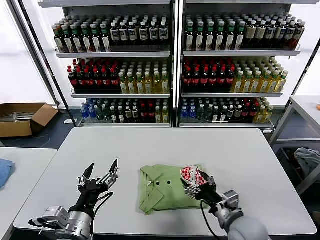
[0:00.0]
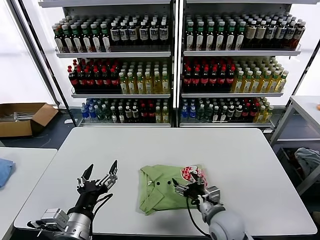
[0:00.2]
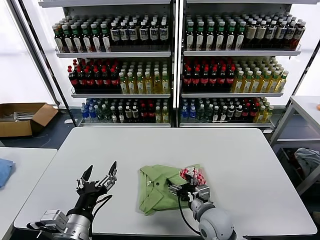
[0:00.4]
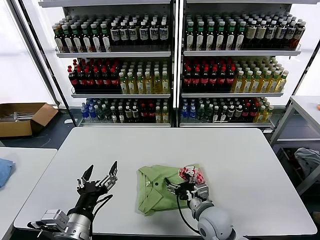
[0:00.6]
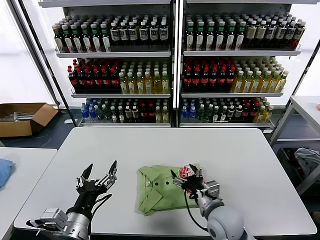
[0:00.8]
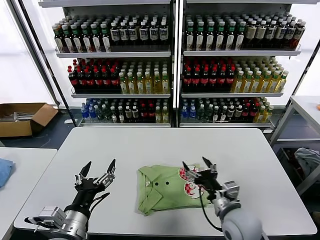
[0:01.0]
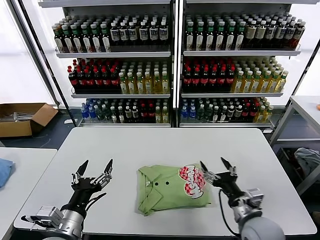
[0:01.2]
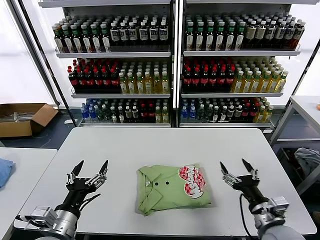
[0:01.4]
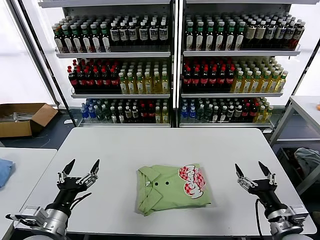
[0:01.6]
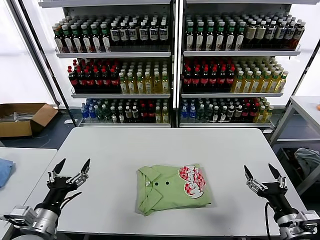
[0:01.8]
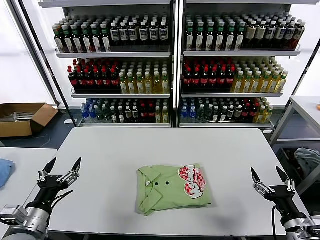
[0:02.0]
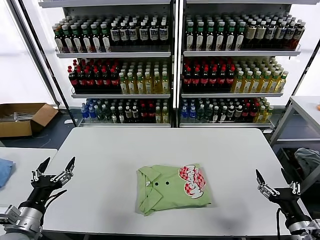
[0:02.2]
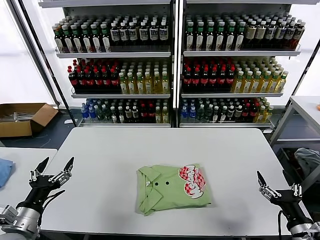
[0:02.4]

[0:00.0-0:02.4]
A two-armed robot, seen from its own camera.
Task of the whole recording: fold and organize the clothes.
0:00.0 to 0:01.2: The right gripper travels to the left and back again, some 10 cm each way.
0:01.2 to 0:02.4: The left gripper travels to the left by about 15 cm, while the right gripper moves to the right and backward, some 15 cm.

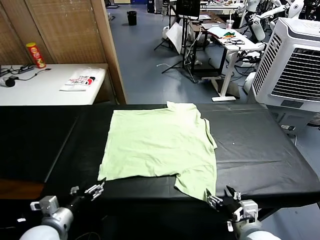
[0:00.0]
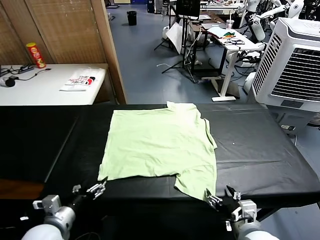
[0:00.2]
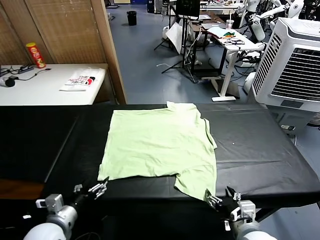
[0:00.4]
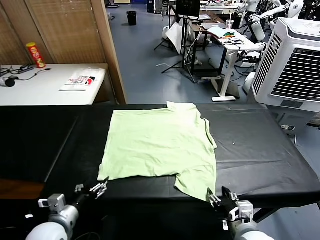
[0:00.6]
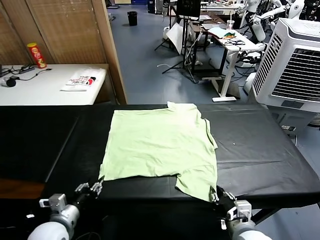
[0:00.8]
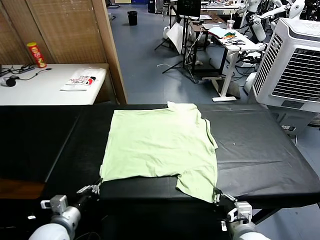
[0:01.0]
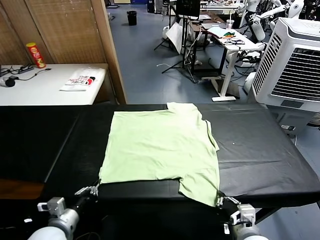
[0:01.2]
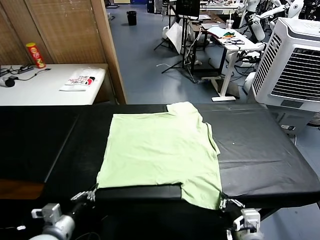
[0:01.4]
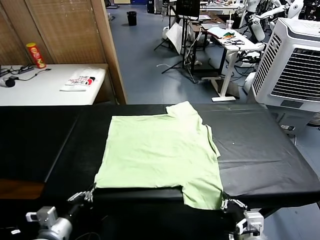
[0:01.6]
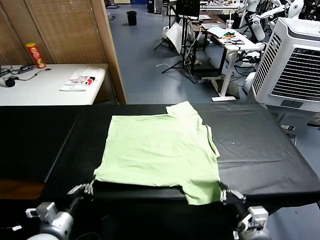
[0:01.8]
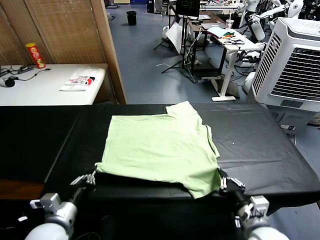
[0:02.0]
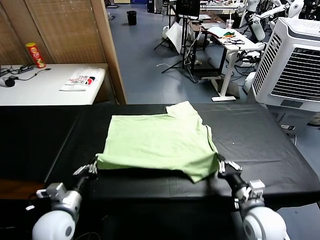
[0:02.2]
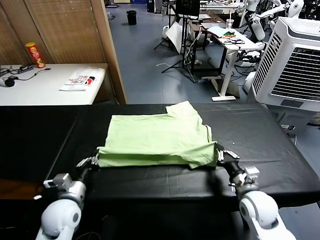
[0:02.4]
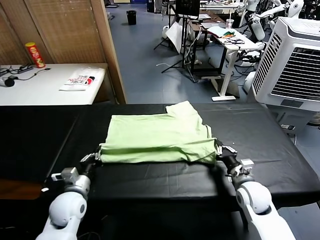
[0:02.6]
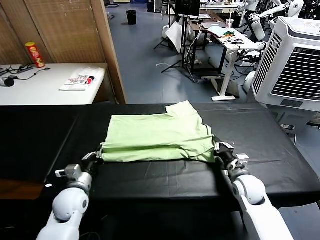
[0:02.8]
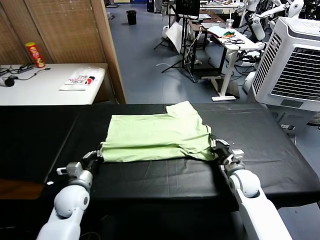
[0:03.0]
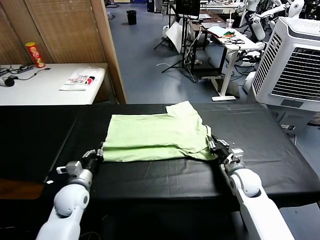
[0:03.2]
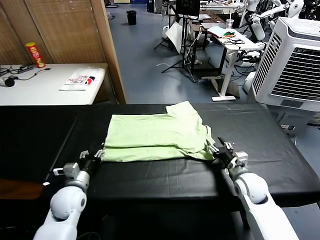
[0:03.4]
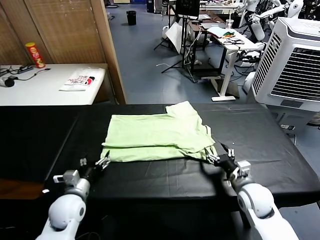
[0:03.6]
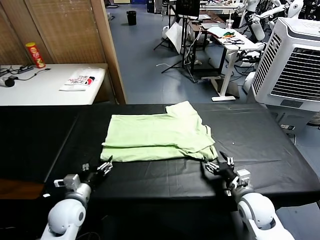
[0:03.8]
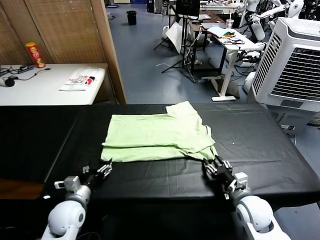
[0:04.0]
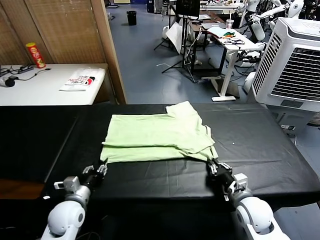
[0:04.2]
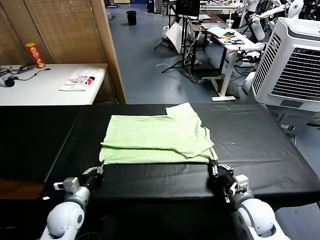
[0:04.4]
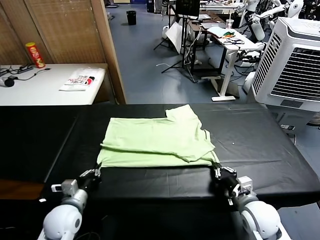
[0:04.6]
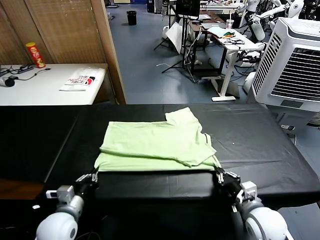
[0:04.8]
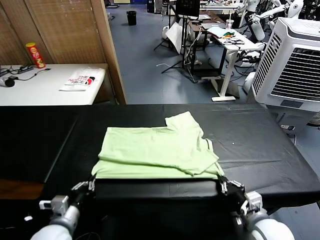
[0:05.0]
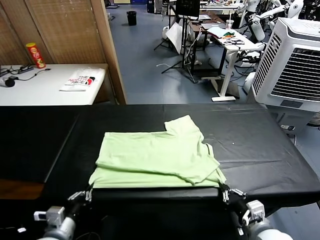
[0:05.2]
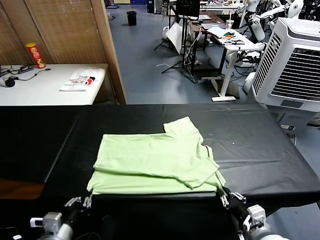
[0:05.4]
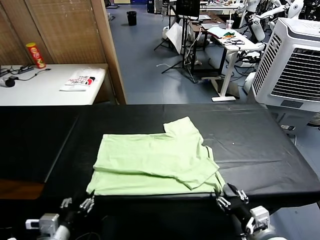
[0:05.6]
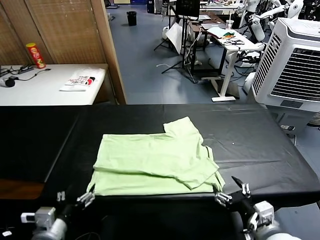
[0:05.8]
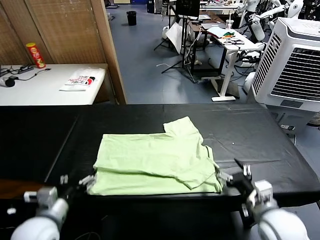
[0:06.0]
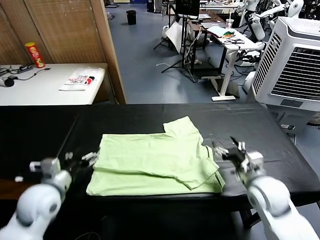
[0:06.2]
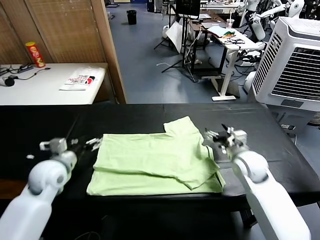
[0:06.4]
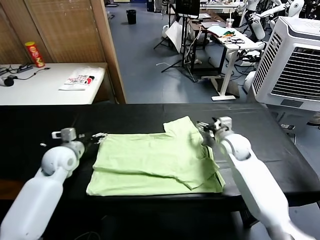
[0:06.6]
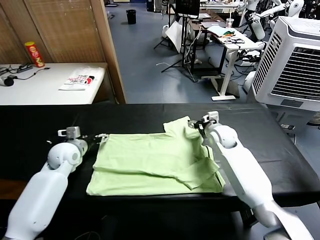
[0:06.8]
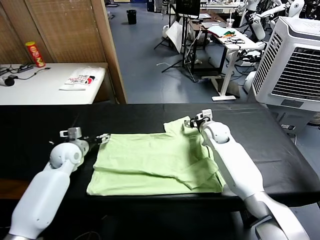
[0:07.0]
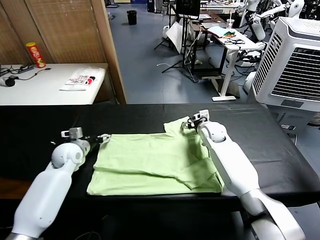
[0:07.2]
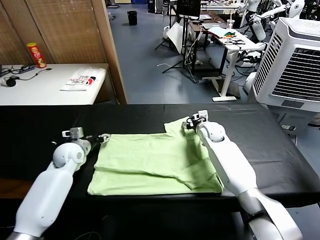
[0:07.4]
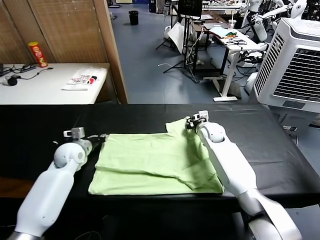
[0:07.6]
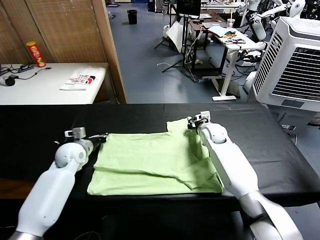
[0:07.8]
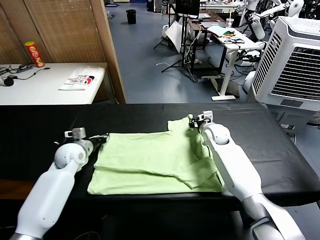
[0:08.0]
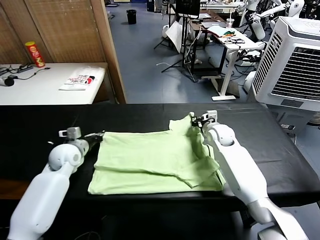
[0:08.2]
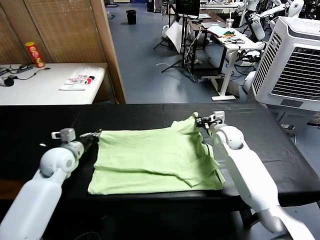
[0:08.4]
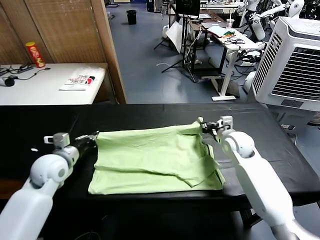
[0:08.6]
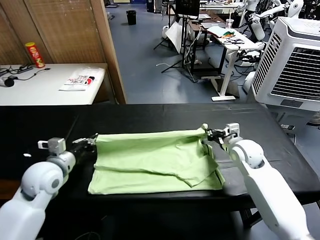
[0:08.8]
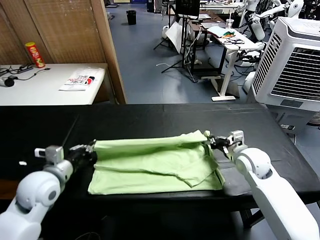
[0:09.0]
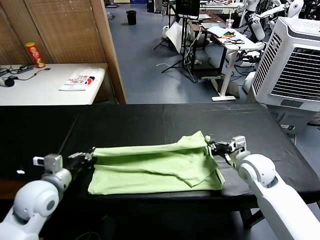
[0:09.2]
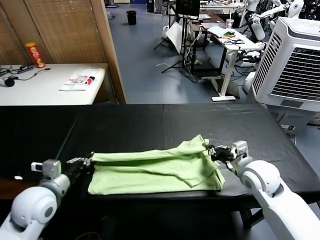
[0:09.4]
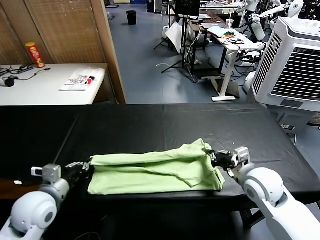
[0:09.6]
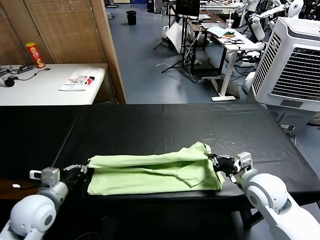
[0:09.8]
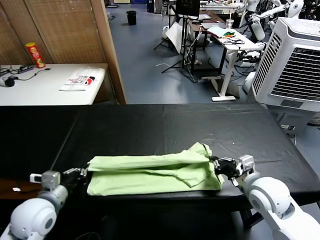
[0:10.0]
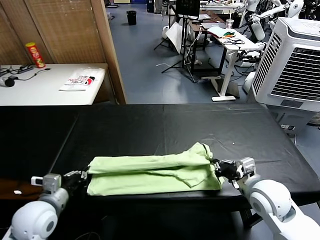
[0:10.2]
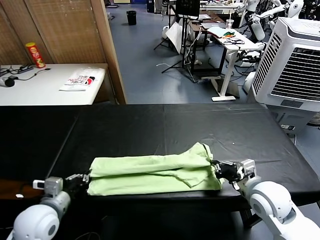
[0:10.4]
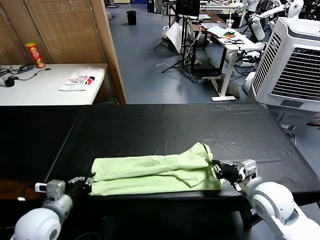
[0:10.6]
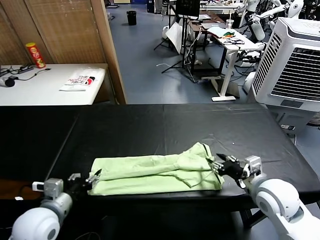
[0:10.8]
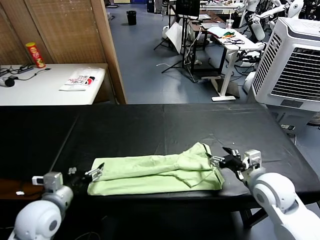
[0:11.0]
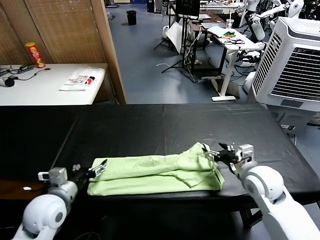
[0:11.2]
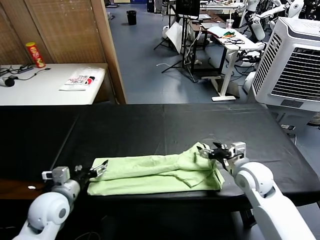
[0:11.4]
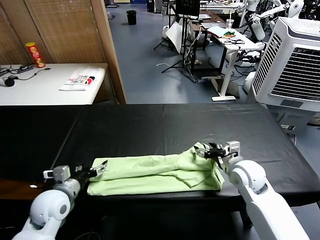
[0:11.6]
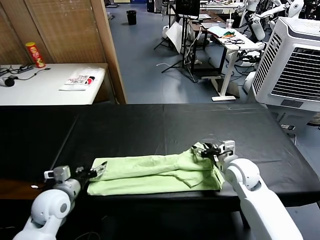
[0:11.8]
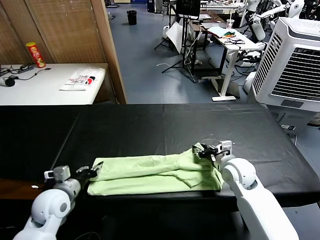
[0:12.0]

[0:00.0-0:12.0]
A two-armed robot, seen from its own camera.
Task of the whole recording: fold and organize the clothes.
Step, 0:00.0 to 0:01.0: use both grippers simultaneously to clamp the lower edge of the clothing fabric.
Step, 0:01.2 to 0:03.4: use both grippers to drag the lower edge of the fabric forward and fold it over the upper edge.
Step, 0:03.6 to 0:05.6: Drag the clothes downward with both gripper.
Step, 0:05.8 to 0:07.6: use both grippers simultaneously to clamp the upper edge of the clothing fabric.
Step, 0:08.0 to 0:10.8: use both grippers to drag the upper edge of the fabric backward and fold it over the lower edge.
0:01.6 to 0:03.0: The two grippers go some 20 cm forward. The right gripper opens its fingers.
0:03.0 to 0:04.4: The right gripper goes roughly 10 cm backward, and closes its fingers. The left gripper heads backward, covering roughly 5 cm, and opens, then closes once more.
0:04.4 to 0:06.0: Both grippers travel together upward, approximately 10 cm. The left gripper opens; the right gripper goes backward and returns, some 10 cm each way, and opens.
0:06.0 to 0:07.6: Both grippers move forward, about 25 cm. The left gripper closes, while the right gripper closes.
0:07.6 to 0:09.0: The left gripper goes some 20 cm backward and upward; the right gripper is displaced backward and to the right by approximately 20 cm.
0:09.0 to 0:10.4: The right gripper travels backward by approximately 10 cm; the left gripper is displaced backward by roughly 5 cm.
0:10.4 to 0:12.0: The right gripper goes approximately 10 cm forward, and opens, then closes again; the left gripper heads forward, covering some 5 cm, and opens up.

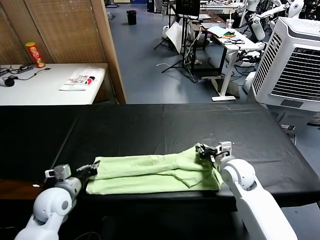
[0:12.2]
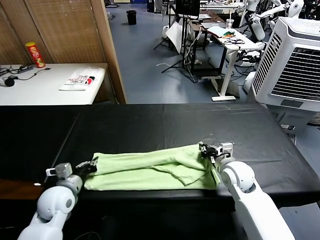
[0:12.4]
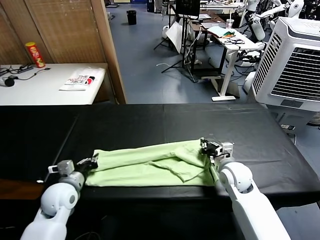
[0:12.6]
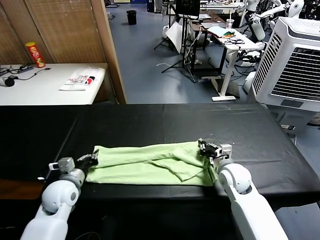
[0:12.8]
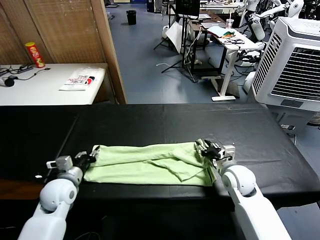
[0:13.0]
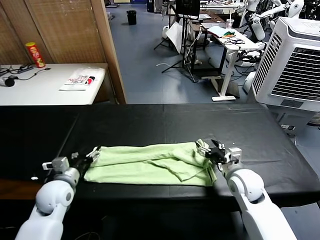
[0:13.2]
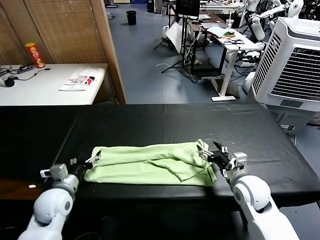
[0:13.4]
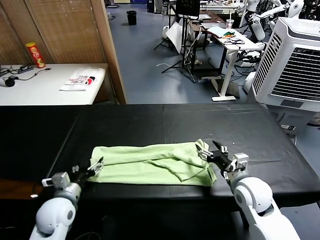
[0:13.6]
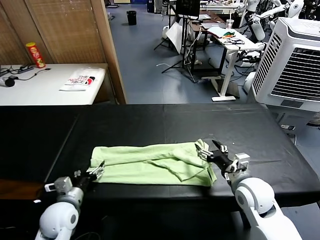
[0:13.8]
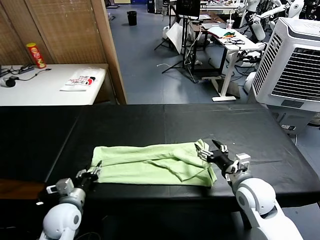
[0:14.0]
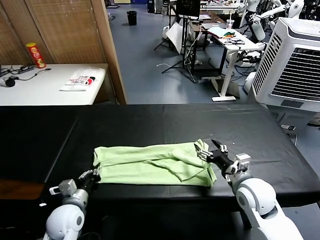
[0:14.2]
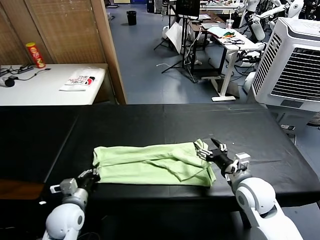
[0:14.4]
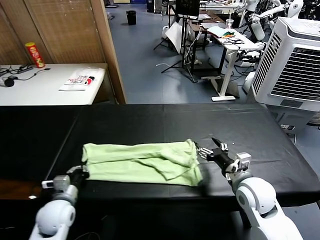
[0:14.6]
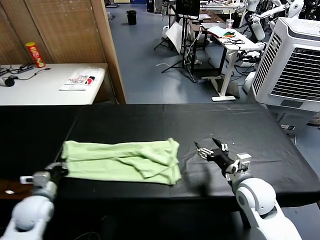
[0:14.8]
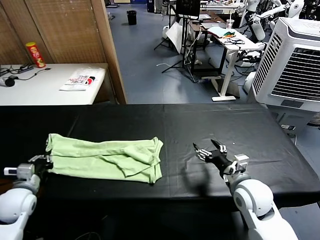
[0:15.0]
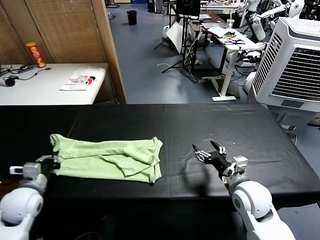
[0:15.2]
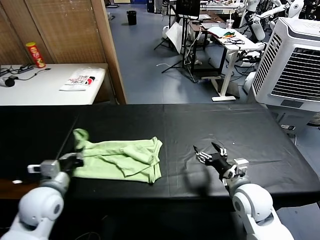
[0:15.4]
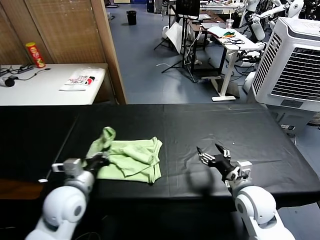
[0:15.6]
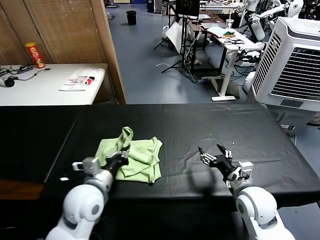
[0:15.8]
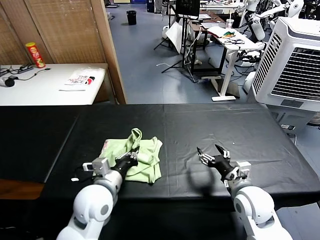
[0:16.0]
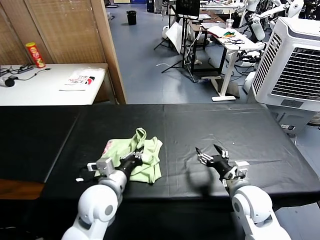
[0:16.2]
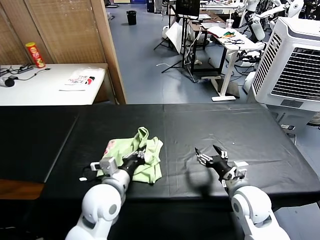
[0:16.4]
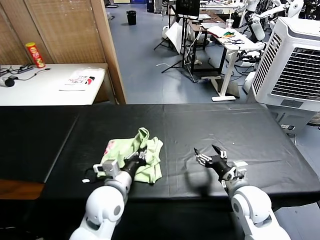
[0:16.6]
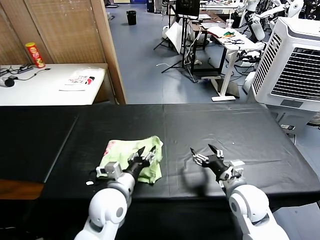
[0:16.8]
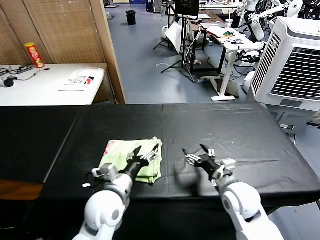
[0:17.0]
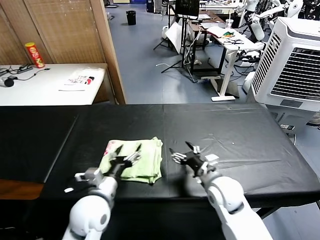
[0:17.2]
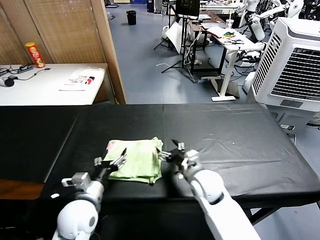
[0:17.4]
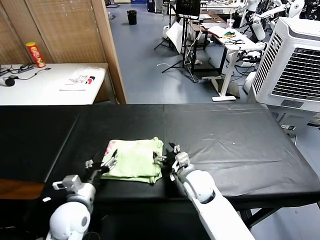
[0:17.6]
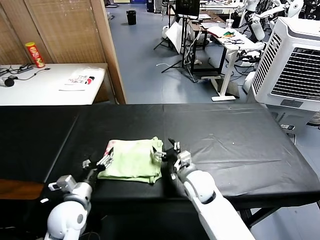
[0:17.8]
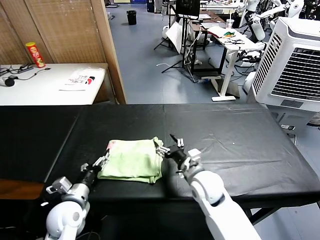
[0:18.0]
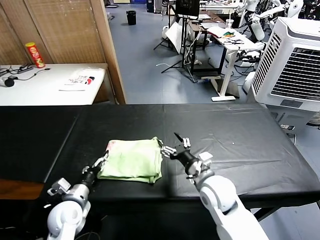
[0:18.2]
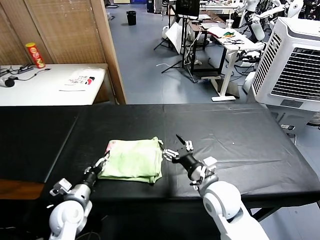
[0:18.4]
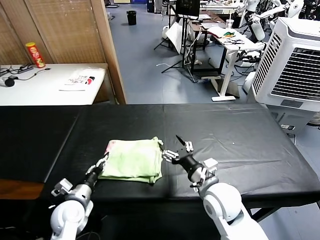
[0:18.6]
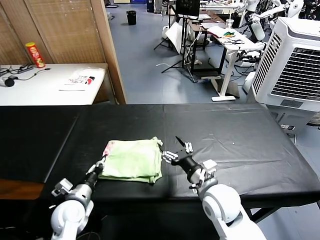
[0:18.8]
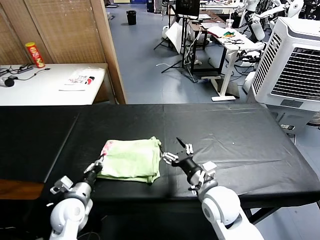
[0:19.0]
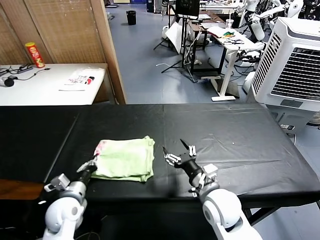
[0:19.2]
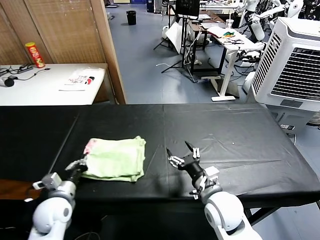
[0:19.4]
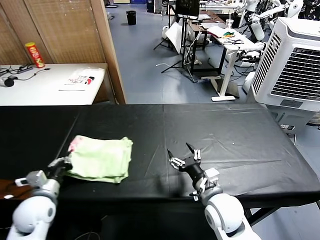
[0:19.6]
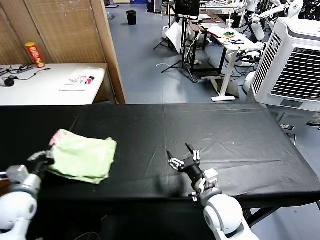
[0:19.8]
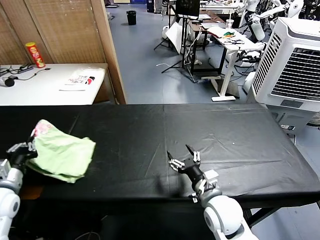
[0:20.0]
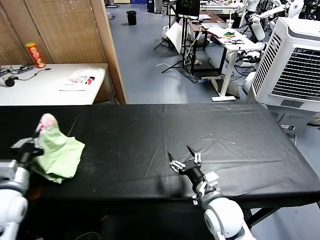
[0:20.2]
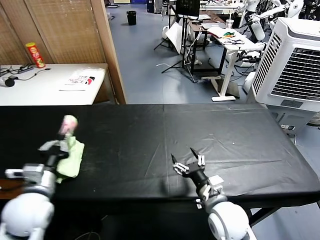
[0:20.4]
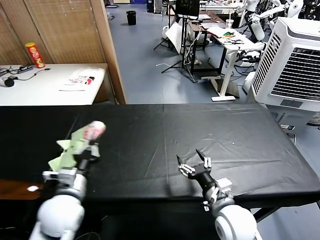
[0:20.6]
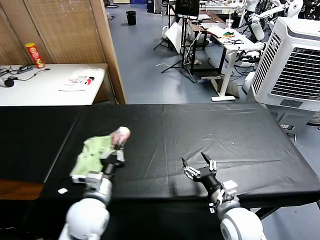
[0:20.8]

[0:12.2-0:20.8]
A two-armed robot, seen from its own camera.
Task of the whole recording: fold and organize the clothes.
Step, 0:12.2 to 0:14.2: use the left gripper to clamp the left edge of the fabric.
Step, 0:14.4 to 0:16.8: use the left gripper to drag the left edge of the fabric to the left and folds it over the right edge.
0:12.2 to 0:13.6: The right gripper shifts approximately 5 cm backward, and opens its fingers. The left gripper opens its fingers.
0:13.6 to 0:15.0: The left gripper goes some 10 cm to the left, and closes up.
0:15.0 to 0:16.6: The left gripper heads to the right, covering approximately 30 cm.
0:16.6 to 0:18.0: The right gripper travels to the left and forward by some 15 cm. The left gripper travels to the left and downward by some 15 cm, and opens its fingers.
0:18.0 to 0:19.4: The left gripper closes. The right gripper shifts approximately 5 cm backward.
0:19.4 to 0:20.8: The left gripper goes about 15 cm to the right and upward. The right gripper ends up approximately 5 cm from where it was.
